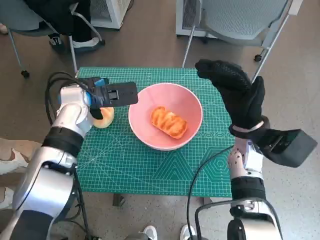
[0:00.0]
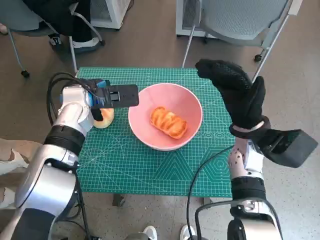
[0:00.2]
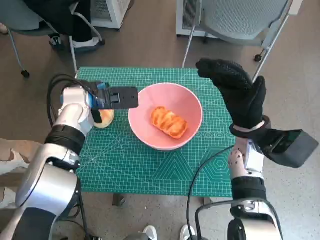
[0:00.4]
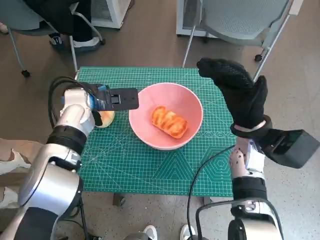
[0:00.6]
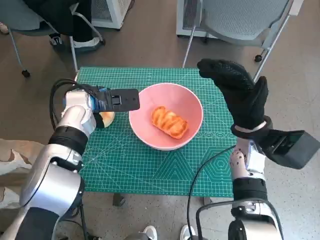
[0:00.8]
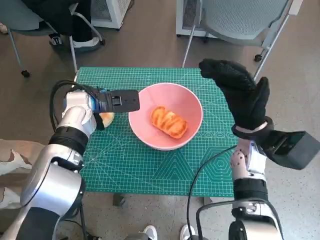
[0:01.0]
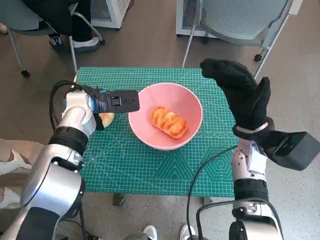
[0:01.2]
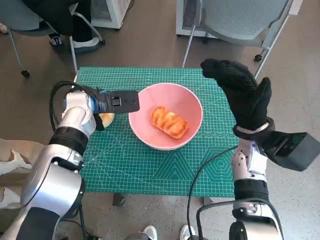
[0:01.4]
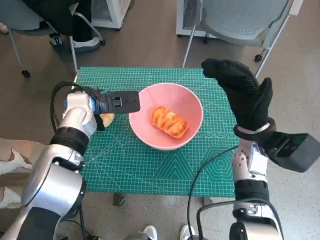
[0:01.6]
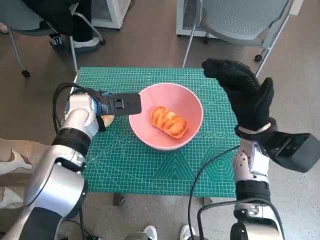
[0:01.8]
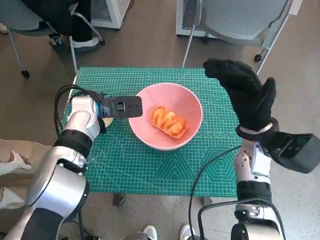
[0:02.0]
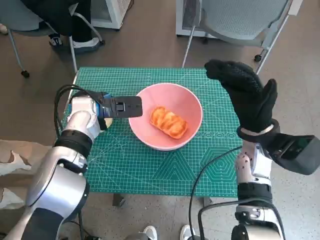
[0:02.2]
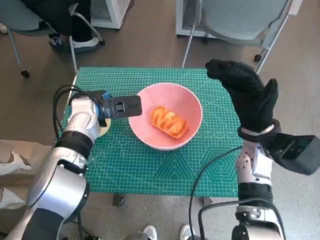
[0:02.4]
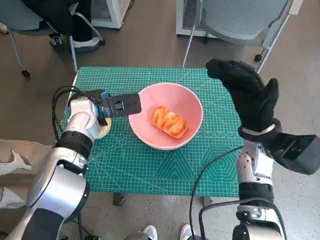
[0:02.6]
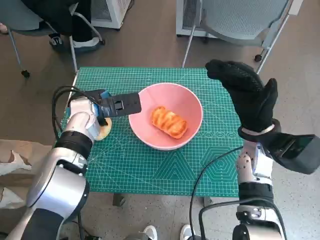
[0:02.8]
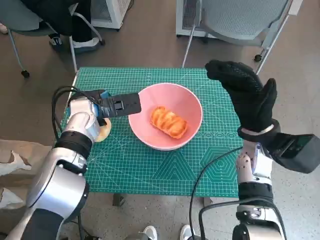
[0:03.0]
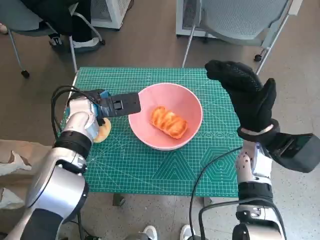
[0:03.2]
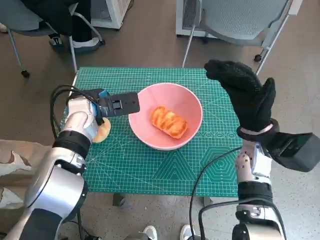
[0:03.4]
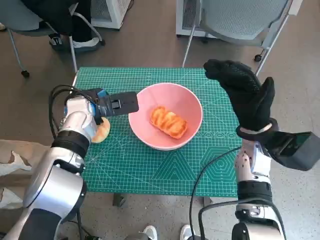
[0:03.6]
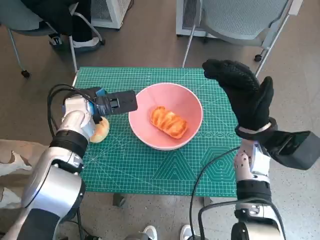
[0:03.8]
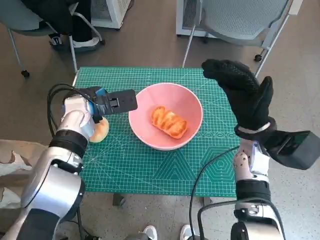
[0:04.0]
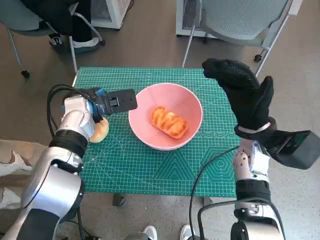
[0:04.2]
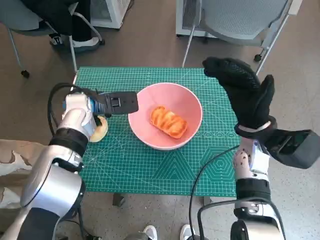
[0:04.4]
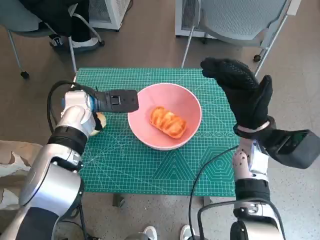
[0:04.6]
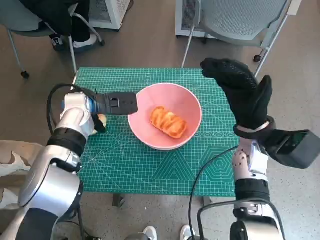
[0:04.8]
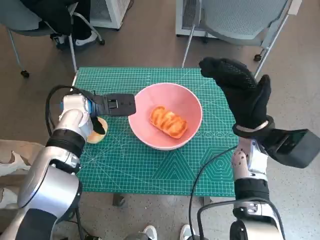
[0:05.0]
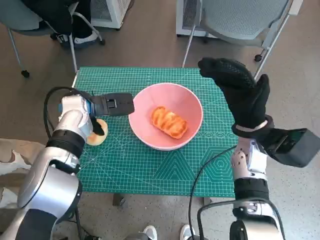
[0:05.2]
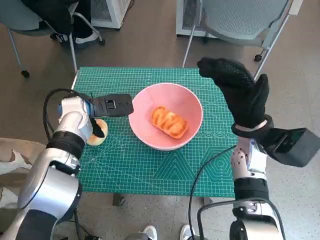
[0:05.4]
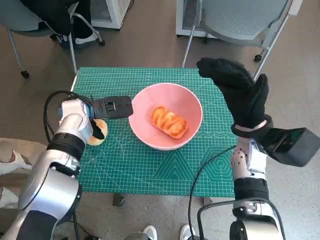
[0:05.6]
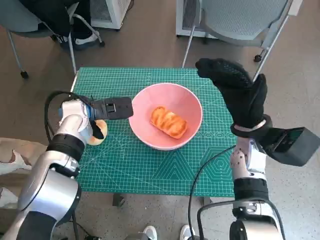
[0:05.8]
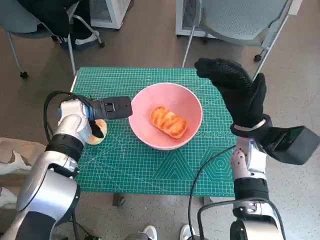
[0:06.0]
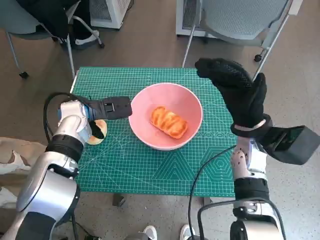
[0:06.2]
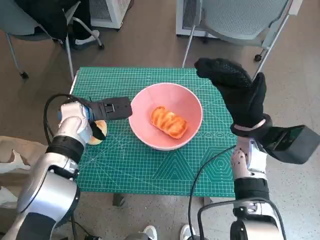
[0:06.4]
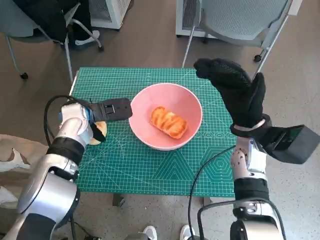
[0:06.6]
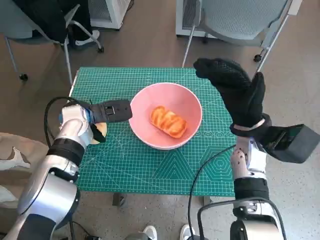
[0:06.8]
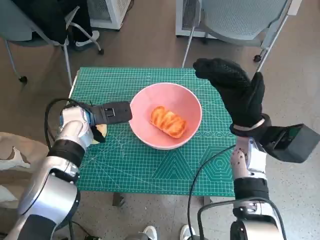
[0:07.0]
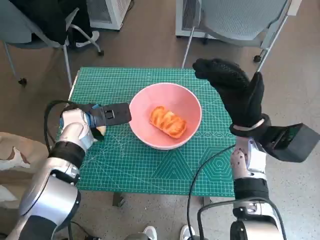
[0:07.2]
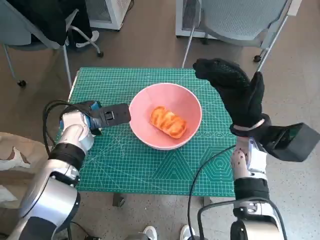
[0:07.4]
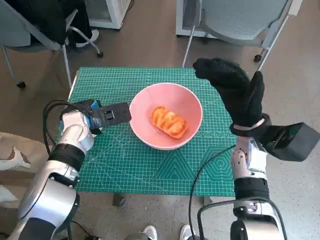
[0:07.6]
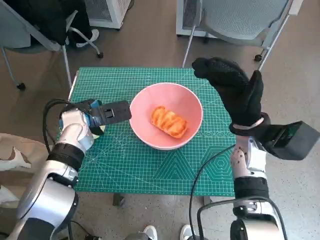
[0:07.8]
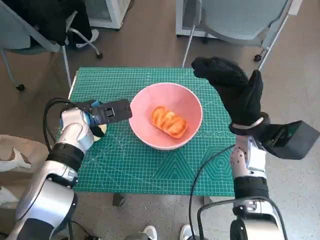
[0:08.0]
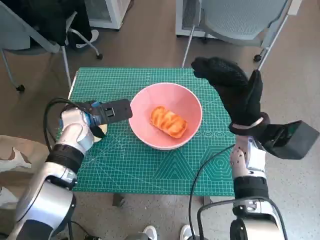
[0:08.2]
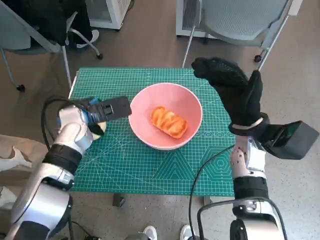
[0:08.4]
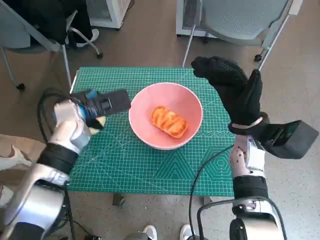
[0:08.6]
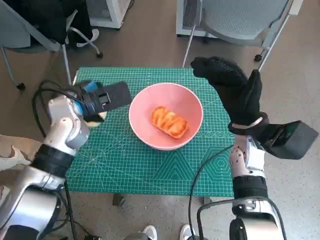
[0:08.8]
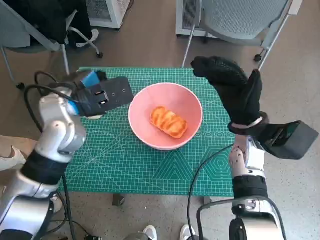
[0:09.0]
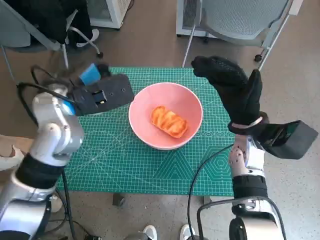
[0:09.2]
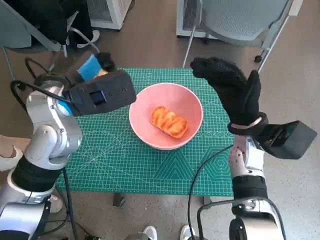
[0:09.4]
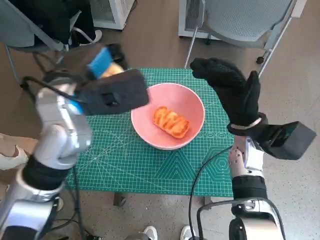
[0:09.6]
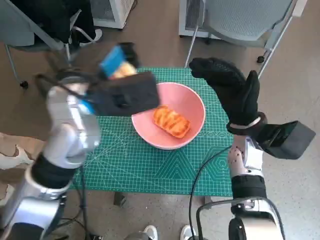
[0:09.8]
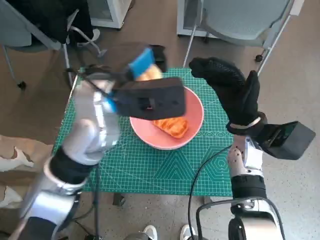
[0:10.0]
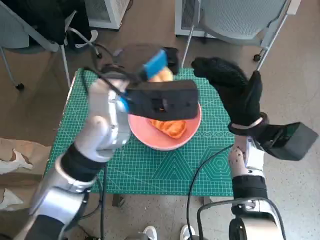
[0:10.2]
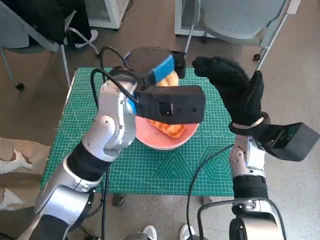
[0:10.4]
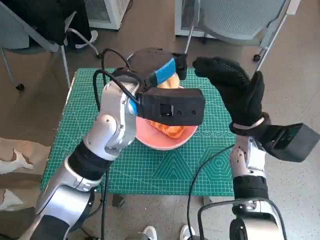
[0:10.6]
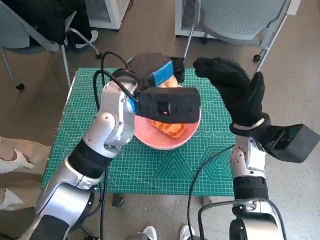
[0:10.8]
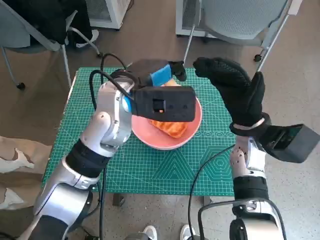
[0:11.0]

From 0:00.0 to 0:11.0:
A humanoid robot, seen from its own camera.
Step, from 0:00.0 to 0:08.0: Grasp the round bread with left hand.
From 0:00.0 to 0:06.2: The hands make only small movements.
From 0:06.2 to 0:07.8: There are only small adjustments of the hands.
From 0:07.8 to 0:09.4: The left hand goes approximately 15 cm upward and backward.
From 0:09.4 to 0:11.0: The left hand moves to the right, approximately 10 cm.

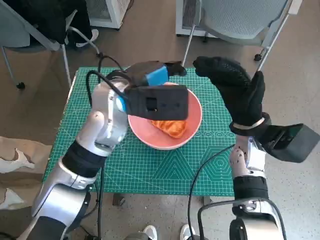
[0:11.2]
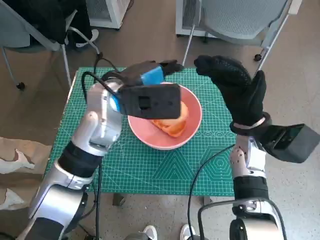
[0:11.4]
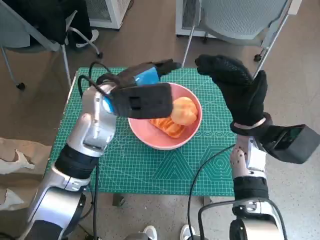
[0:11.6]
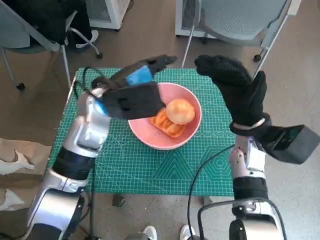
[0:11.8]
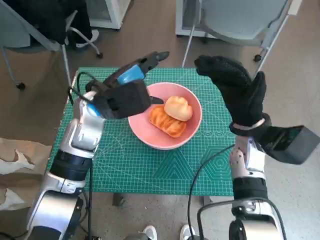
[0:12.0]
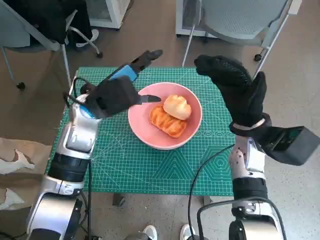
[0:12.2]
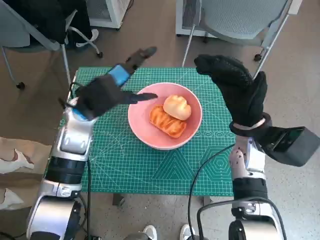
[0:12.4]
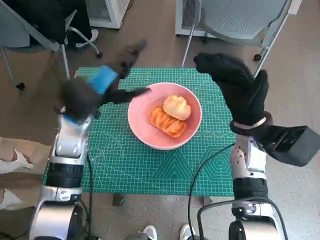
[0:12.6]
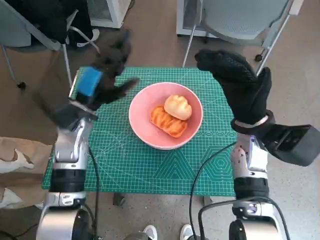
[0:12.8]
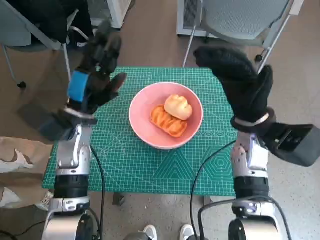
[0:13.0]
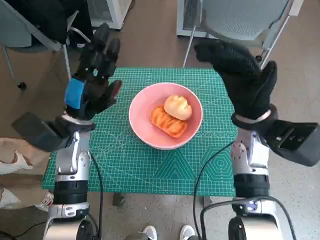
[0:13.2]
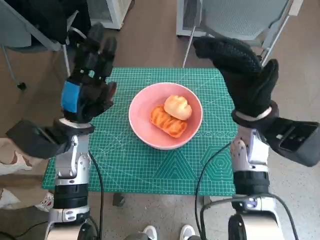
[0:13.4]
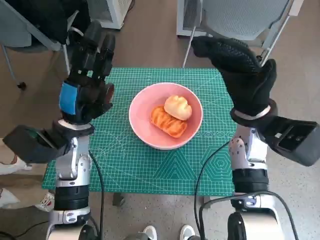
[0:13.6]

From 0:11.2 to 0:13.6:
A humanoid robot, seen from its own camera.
From 0:11.2 to 0:12.4: The left hand travels to the left by roughly 10 cm.
From 0:12.4 to 0:13.6: The left hand changes place by about 5 cm.

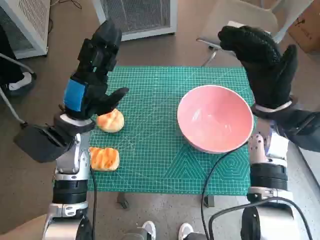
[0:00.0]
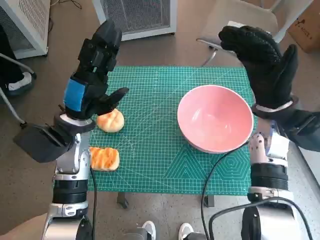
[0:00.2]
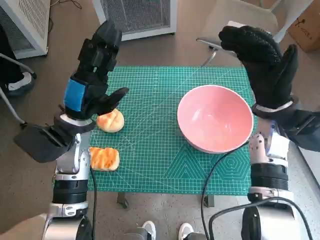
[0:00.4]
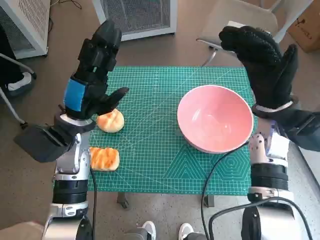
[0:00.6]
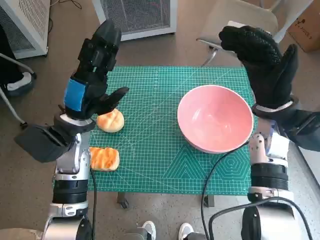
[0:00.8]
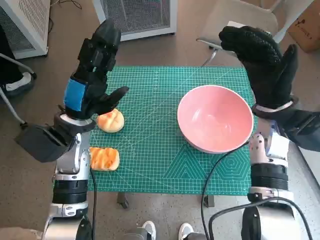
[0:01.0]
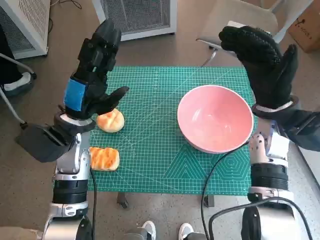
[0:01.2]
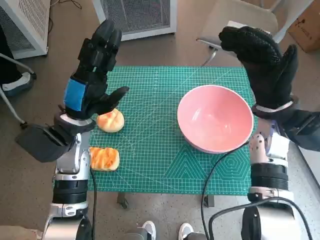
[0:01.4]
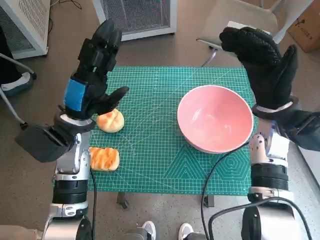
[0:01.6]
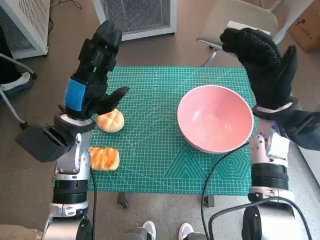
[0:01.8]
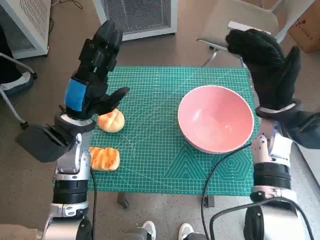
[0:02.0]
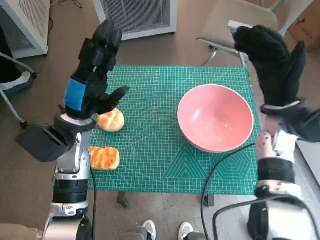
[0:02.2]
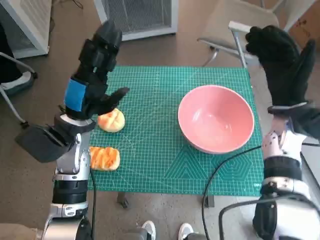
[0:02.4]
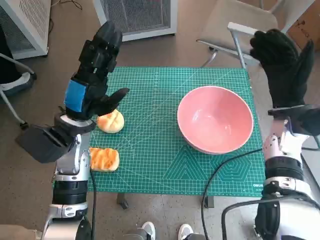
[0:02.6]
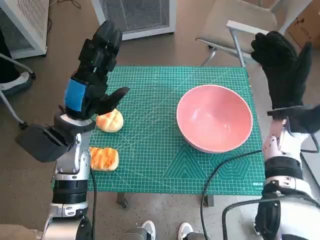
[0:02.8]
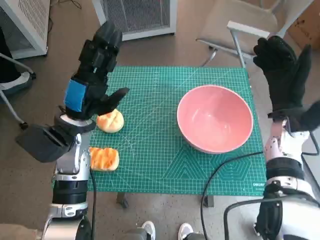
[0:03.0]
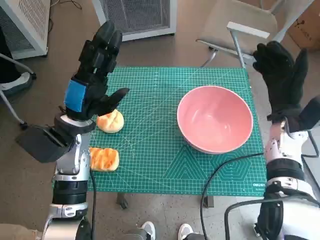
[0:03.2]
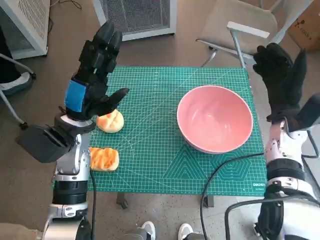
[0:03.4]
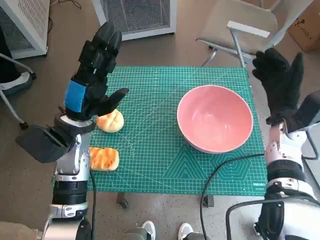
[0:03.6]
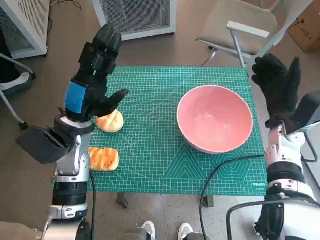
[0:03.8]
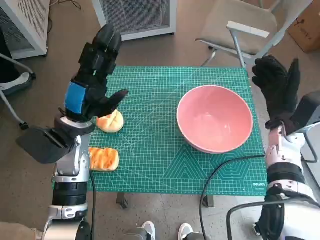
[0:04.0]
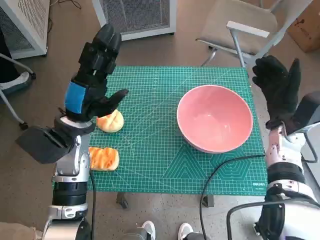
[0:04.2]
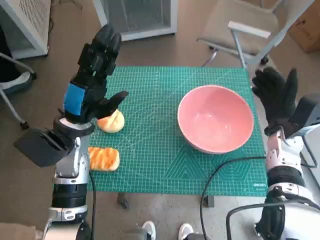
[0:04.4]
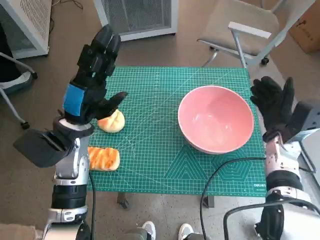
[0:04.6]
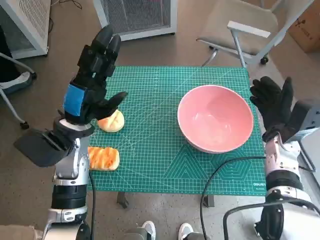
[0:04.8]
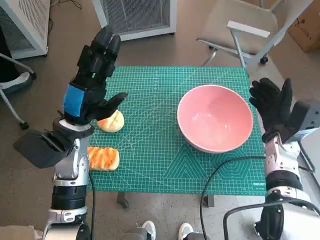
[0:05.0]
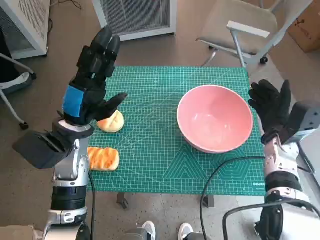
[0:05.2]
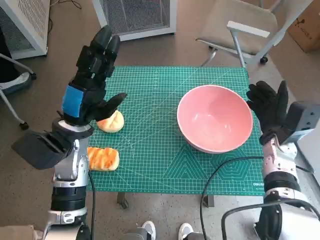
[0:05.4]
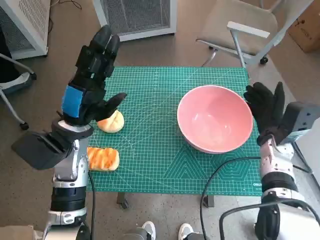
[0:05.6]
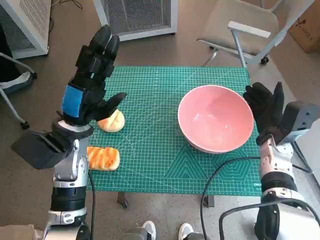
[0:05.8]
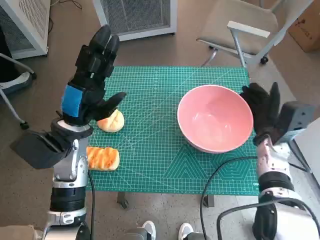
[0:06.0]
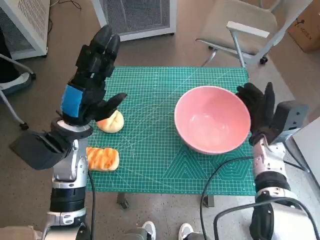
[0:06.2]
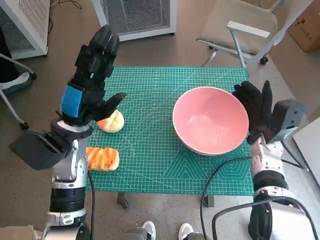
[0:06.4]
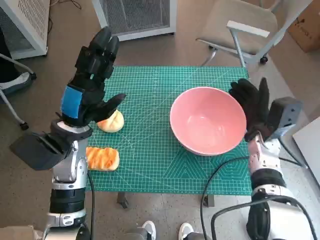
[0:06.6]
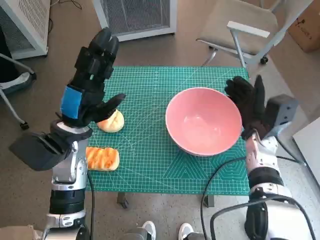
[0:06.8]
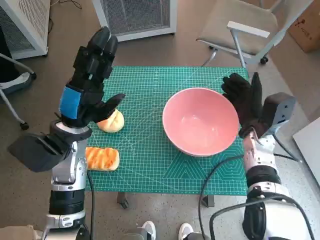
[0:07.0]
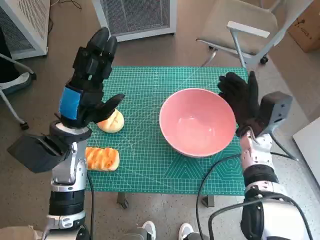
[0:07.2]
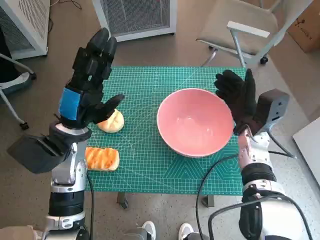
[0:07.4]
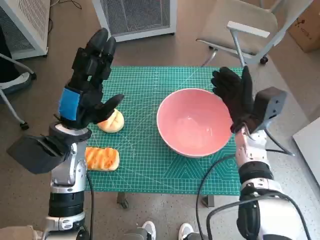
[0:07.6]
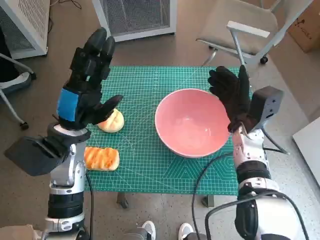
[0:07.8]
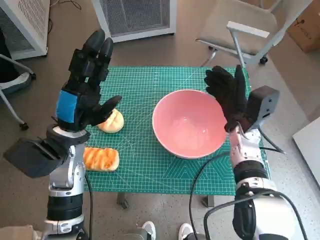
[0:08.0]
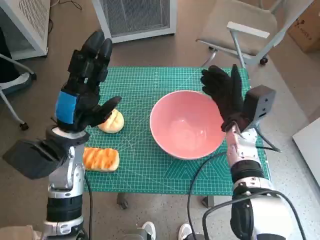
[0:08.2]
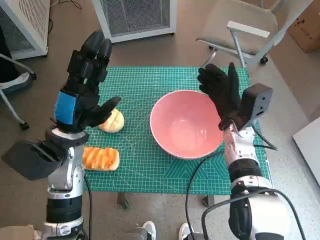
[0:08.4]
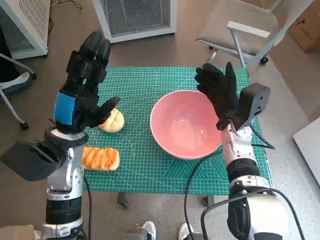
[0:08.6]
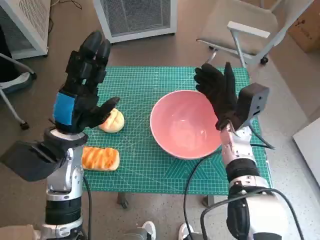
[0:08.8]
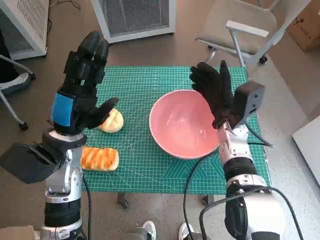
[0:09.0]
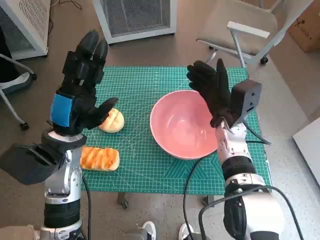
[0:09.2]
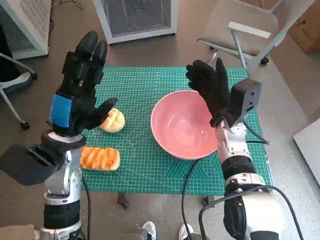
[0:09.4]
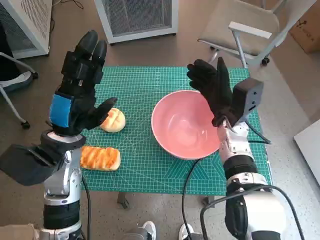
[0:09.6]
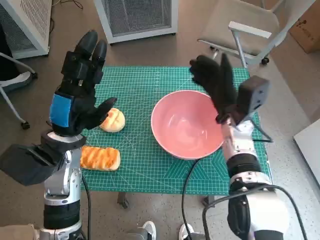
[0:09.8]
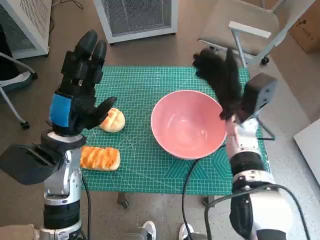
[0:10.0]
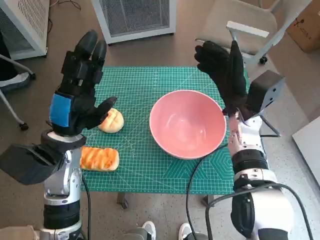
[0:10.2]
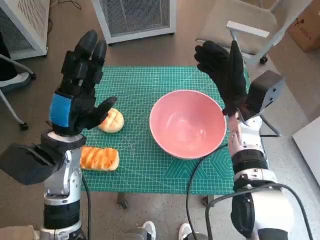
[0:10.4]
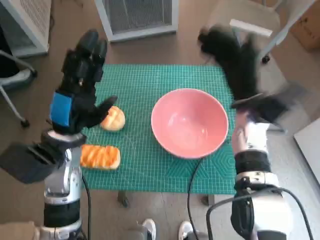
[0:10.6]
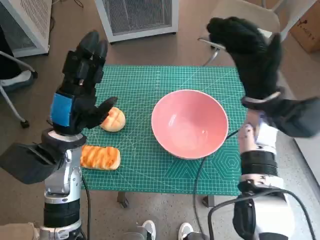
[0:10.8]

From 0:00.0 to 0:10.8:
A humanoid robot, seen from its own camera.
Step, from 0:00.0 to 0:09.8: Move the pink bowl to the center of table with right hand.
From 0:01.6 to 0:03.0: The right hand ends up about 5 cm from where it was.
From 0:03.0 to 0:04.6: The right hand goes roughly 5 cm downward.
From 0:04.6 to 0:06.2: There are only small adjustments of the hands.
From 0:06.2 to 0:07.8: The right hand travels to the left by some 5 cm.
From 0:09.2 to 0:10.8: The right hand heads upward, covering roughly 5 cm.
